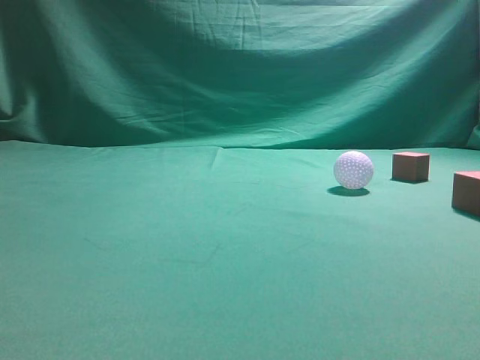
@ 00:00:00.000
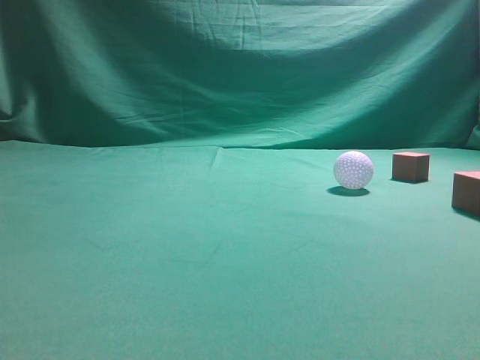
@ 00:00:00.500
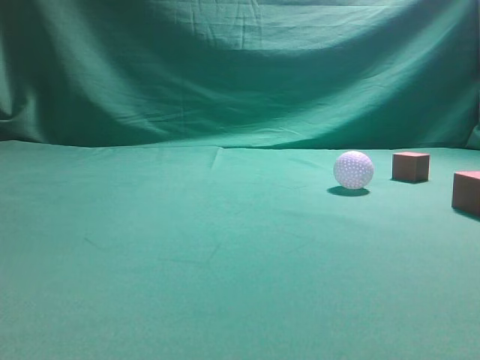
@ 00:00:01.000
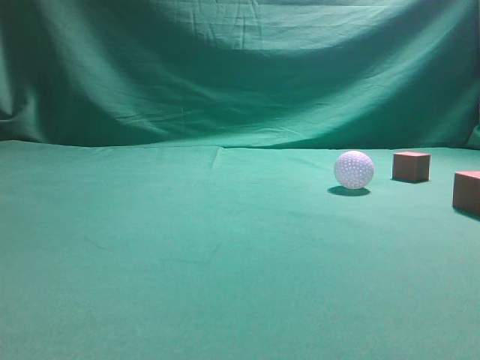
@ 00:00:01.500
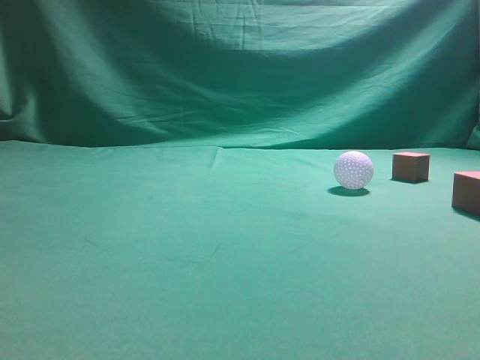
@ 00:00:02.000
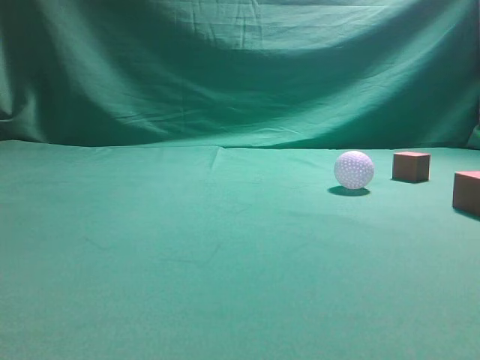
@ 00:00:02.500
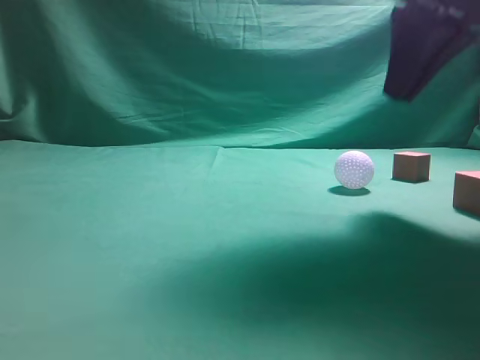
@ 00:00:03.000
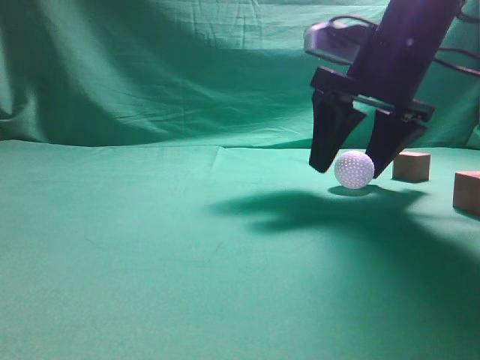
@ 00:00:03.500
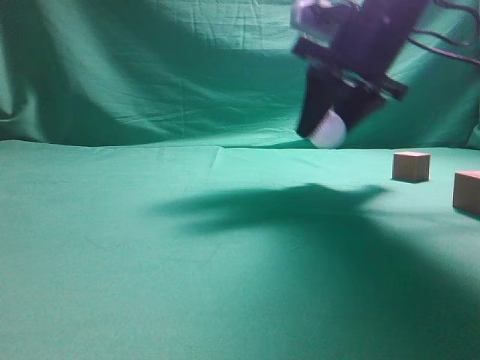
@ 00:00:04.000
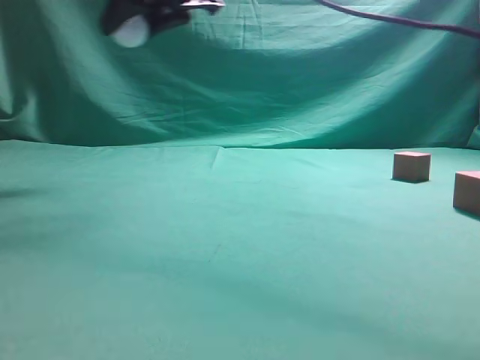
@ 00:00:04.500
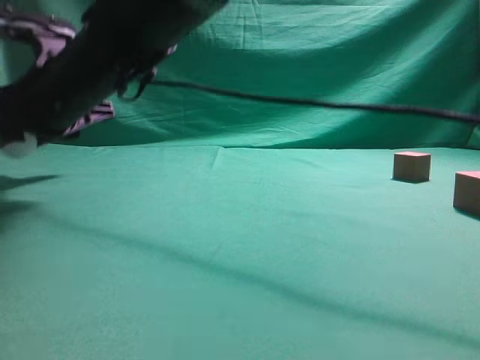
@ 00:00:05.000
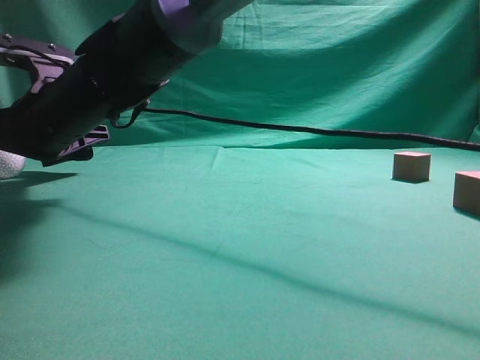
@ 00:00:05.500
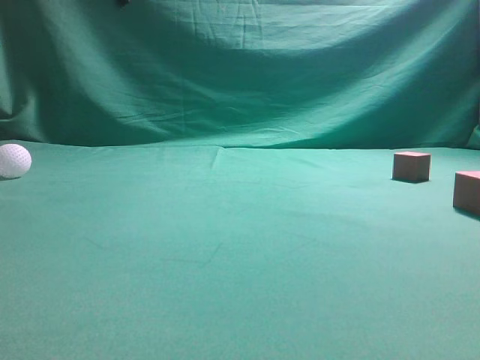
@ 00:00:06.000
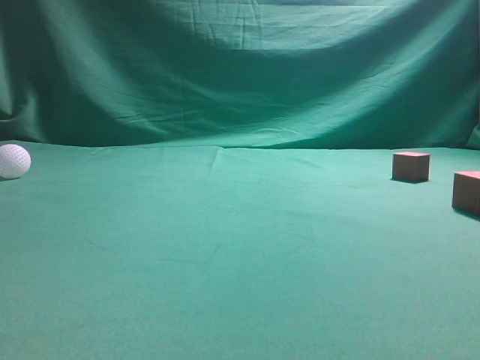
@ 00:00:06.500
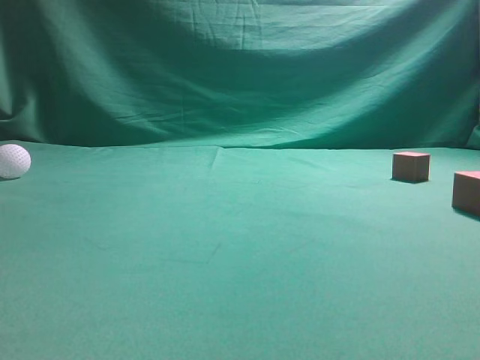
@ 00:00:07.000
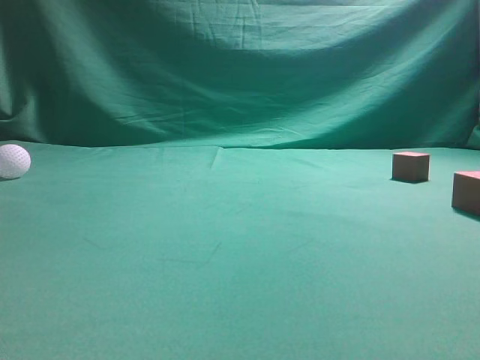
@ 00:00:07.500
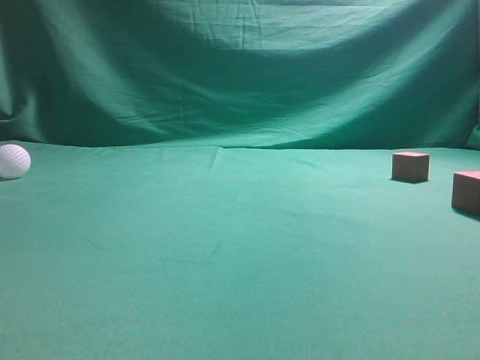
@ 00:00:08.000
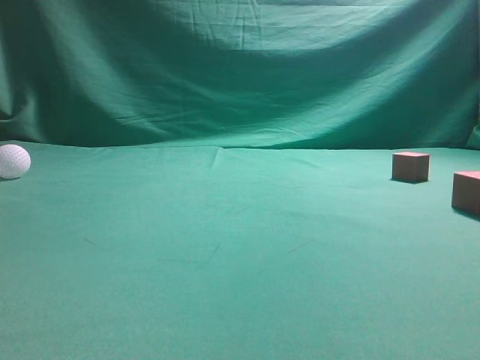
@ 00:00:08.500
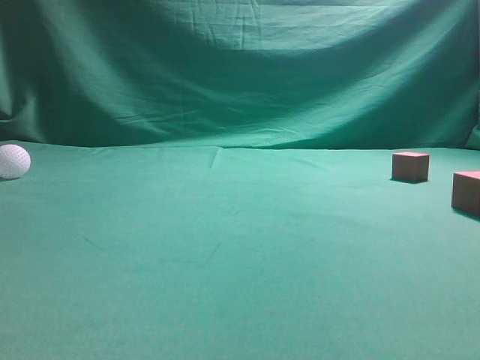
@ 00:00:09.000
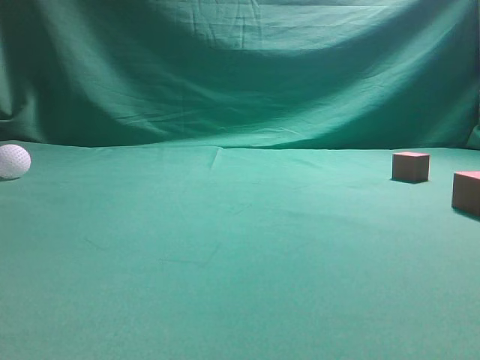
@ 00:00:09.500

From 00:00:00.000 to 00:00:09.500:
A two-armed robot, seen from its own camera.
Step, from 00:00:00.000 to 00:00:04.000: Grasp the spherical object on the right side.
From 00:00:02.000 to 00:00:04.000: The right gripper is displaced forward and to the left by about 35 cm, and opens.
From 00:00:04.000 to 00:00:05.500: The right gripper heads to the left, covering approximately 30 cm, and opens.
From 00:00:05.500 to 00:00:07.500: The right gripper goes some 50 cm to the right, backward and upward, and closes.
